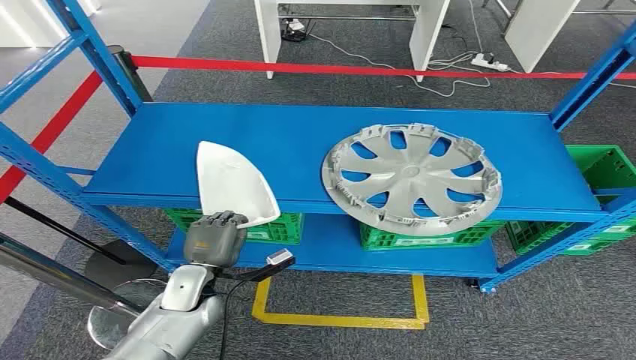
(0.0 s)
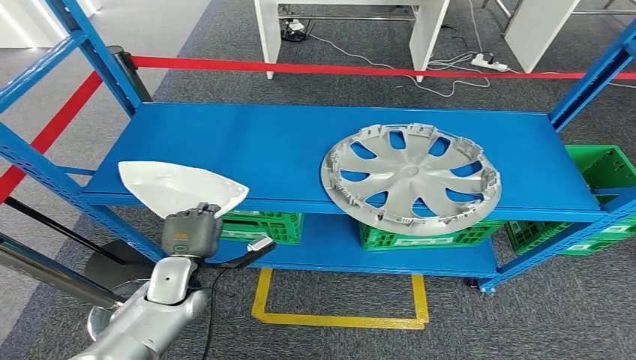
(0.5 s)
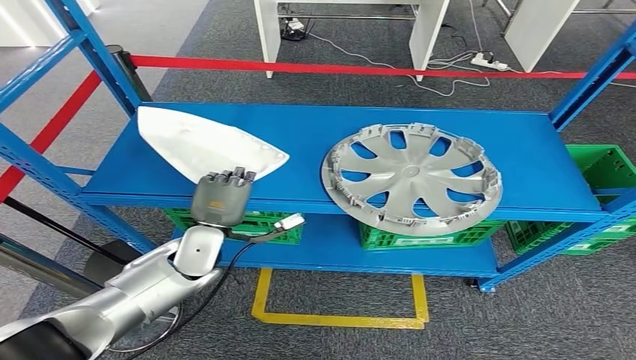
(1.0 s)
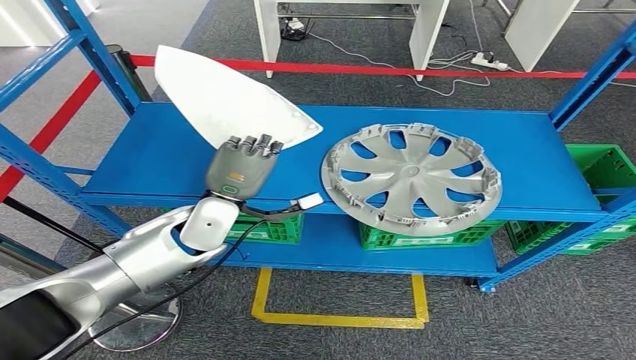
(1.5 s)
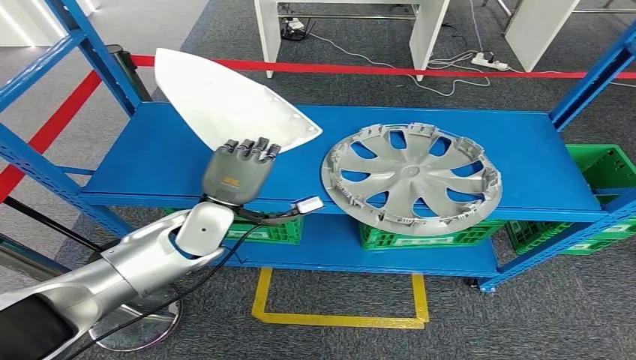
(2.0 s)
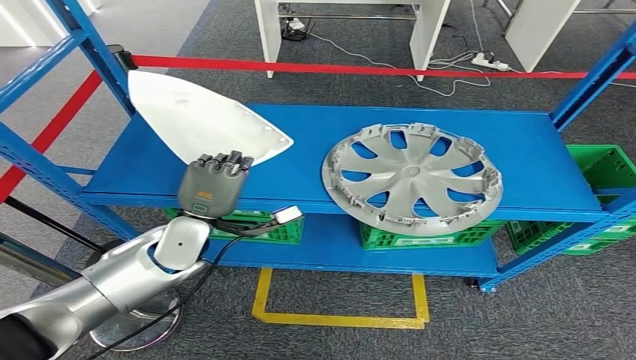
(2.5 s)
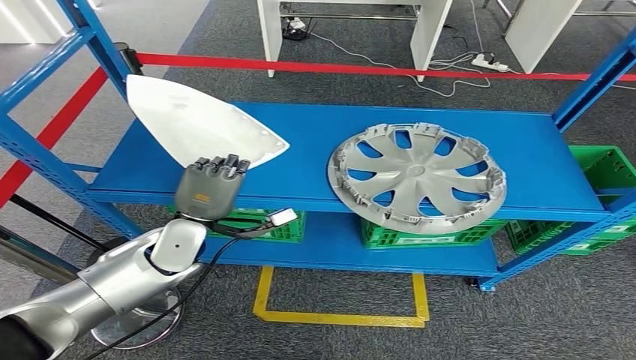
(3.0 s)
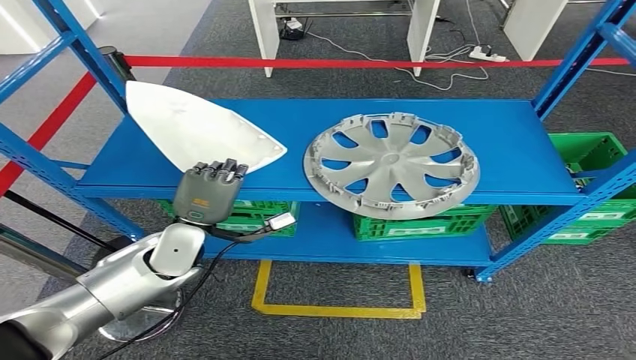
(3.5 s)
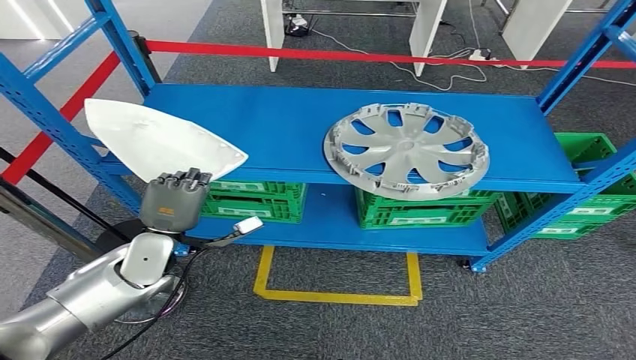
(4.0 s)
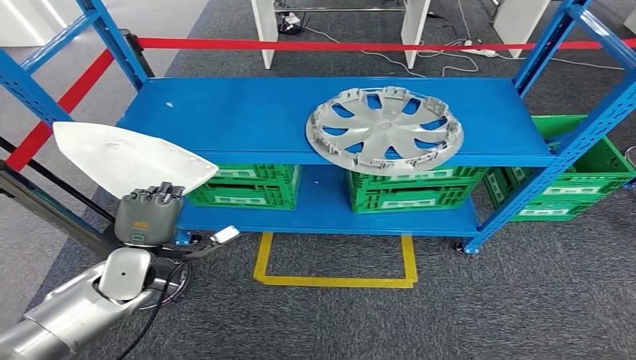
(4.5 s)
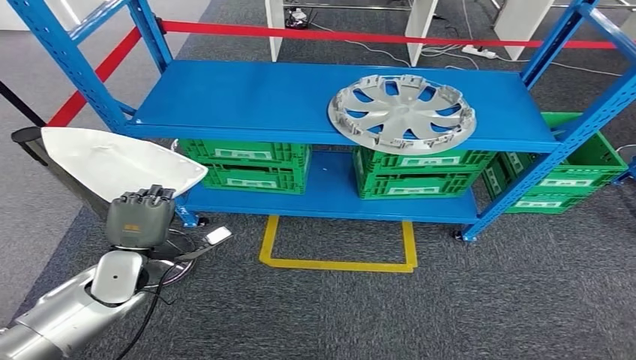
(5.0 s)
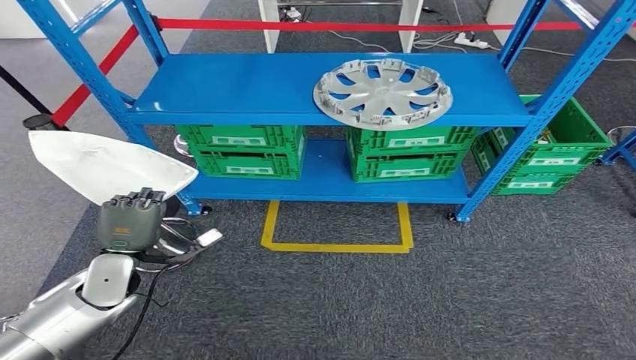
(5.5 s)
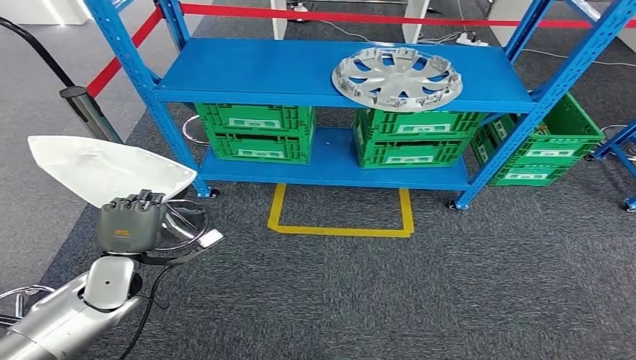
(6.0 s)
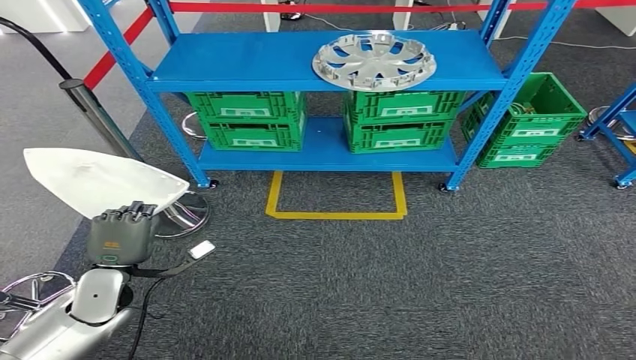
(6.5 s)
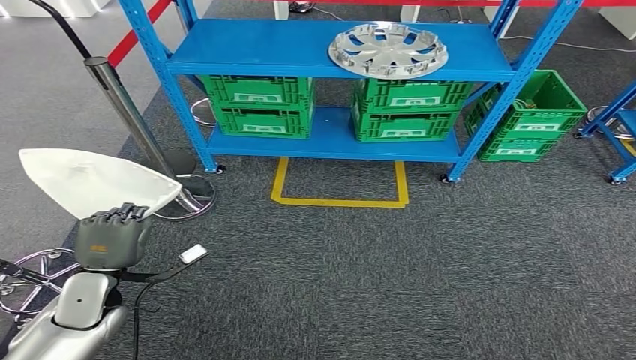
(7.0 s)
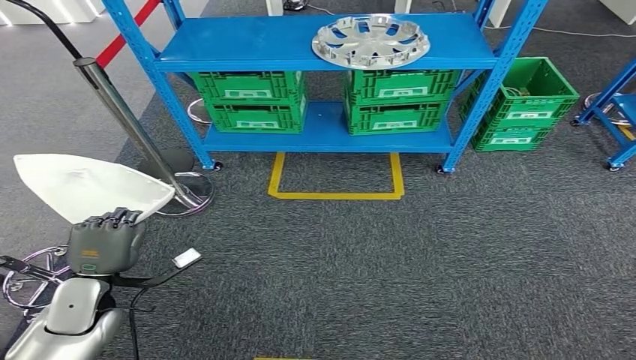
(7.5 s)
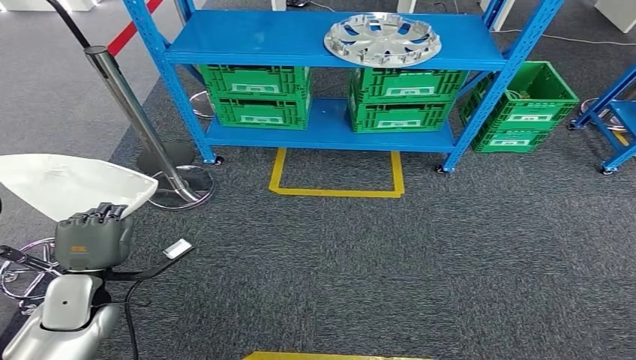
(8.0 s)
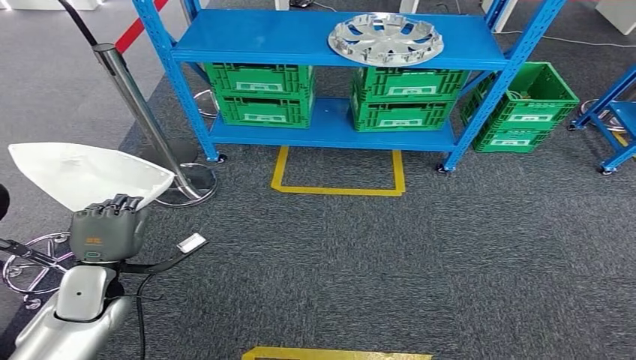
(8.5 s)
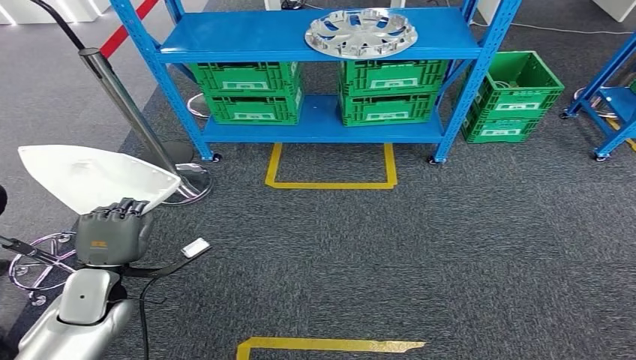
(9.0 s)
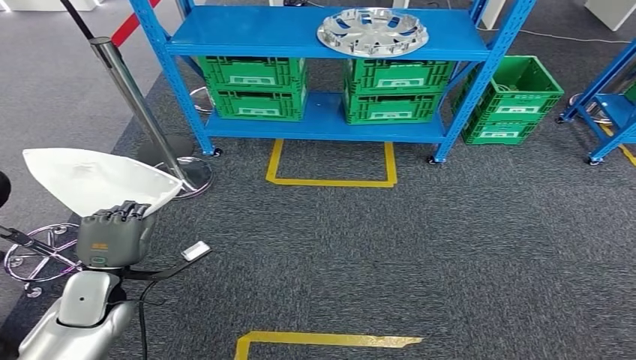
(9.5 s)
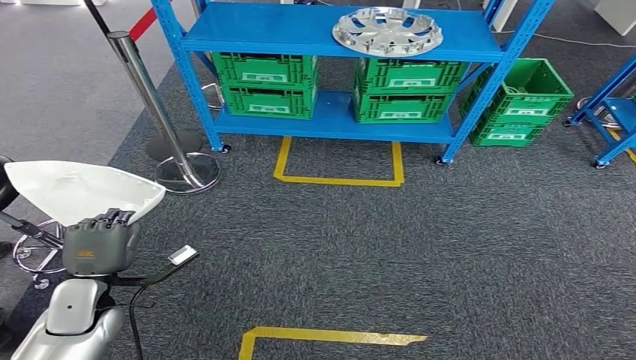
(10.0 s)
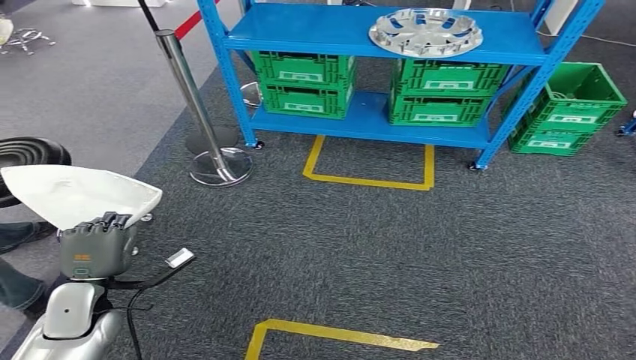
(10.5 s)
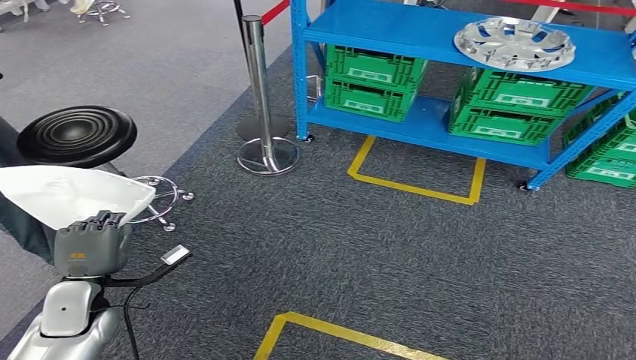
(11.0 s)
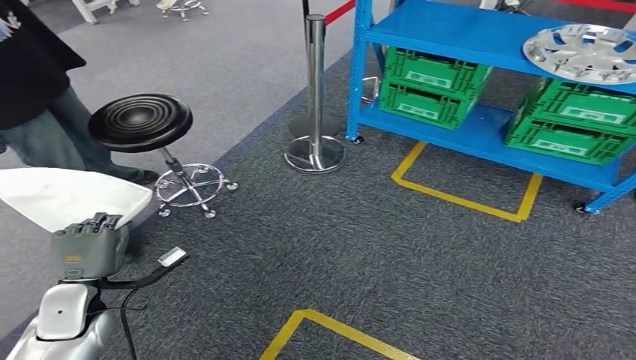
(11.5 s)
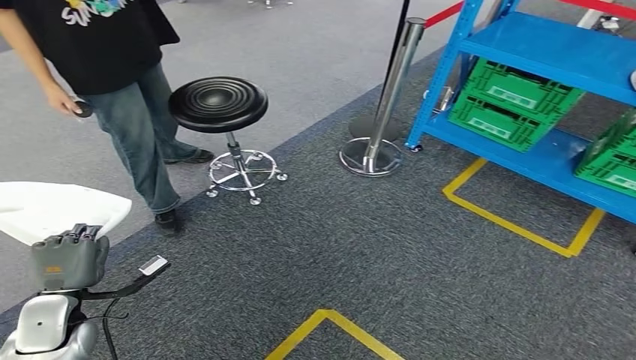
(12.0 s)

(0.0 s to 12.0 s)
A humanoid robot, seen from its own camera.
Step, 0.0 s - 1.5 s: Pick up the small component from the shelf.

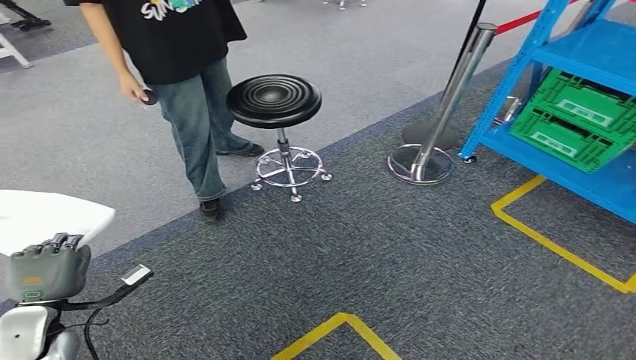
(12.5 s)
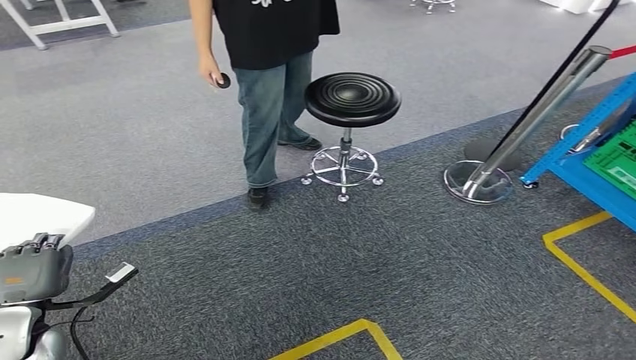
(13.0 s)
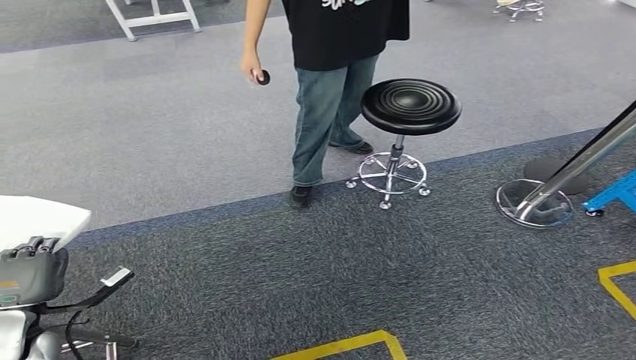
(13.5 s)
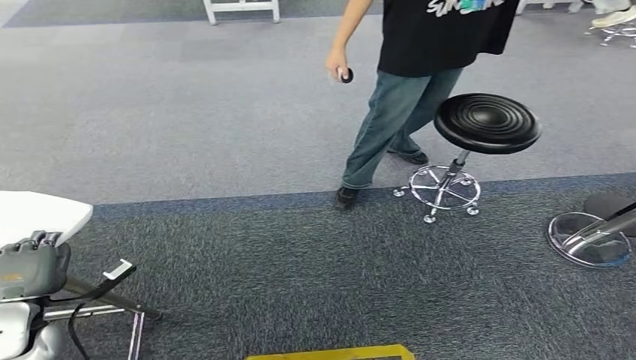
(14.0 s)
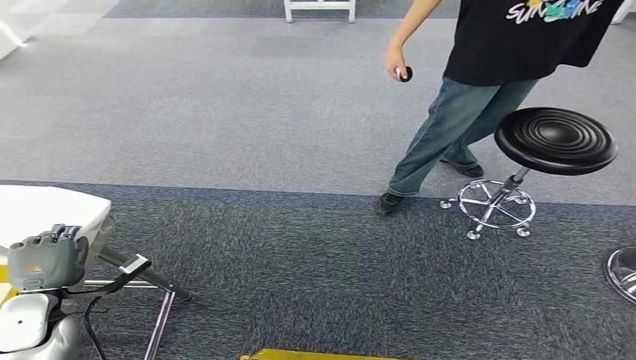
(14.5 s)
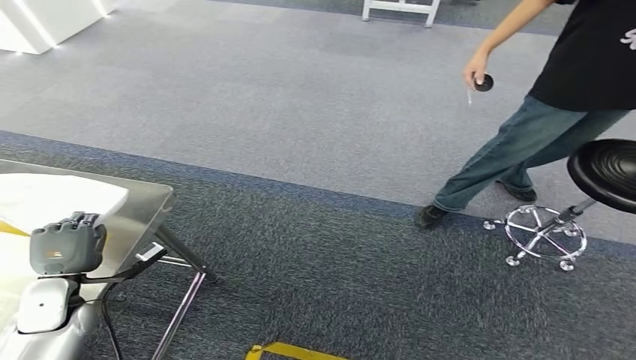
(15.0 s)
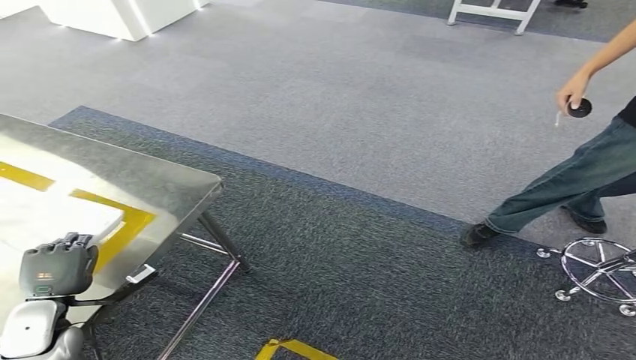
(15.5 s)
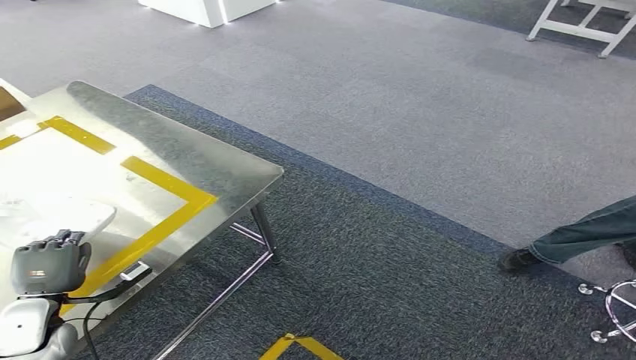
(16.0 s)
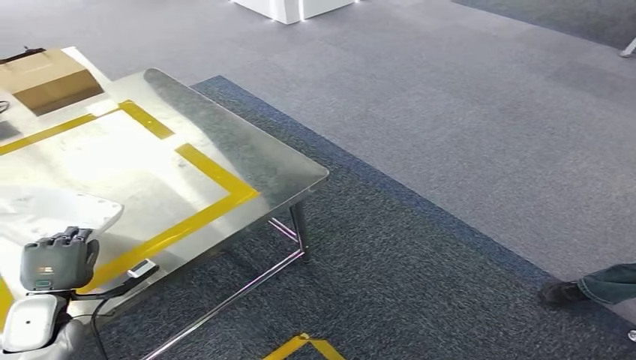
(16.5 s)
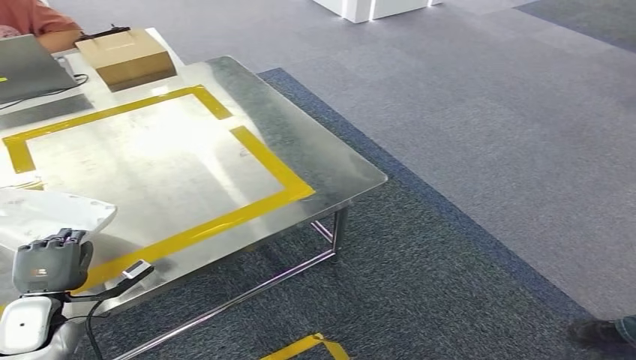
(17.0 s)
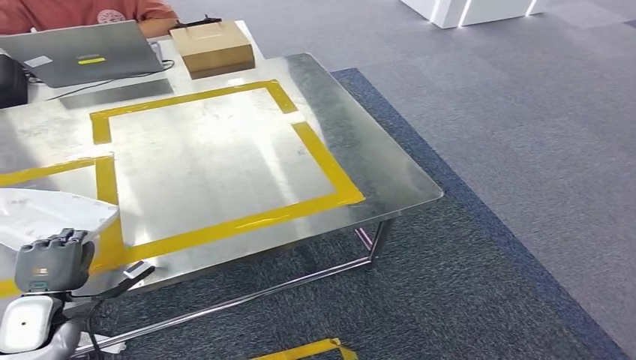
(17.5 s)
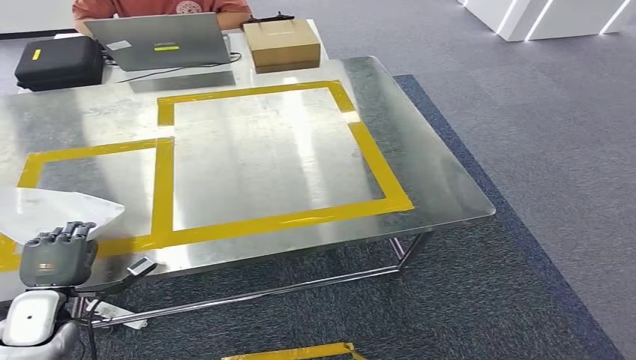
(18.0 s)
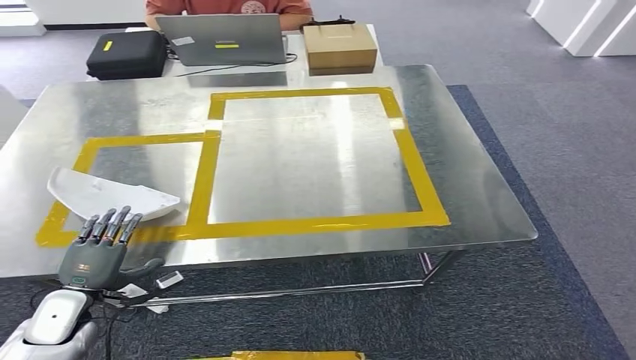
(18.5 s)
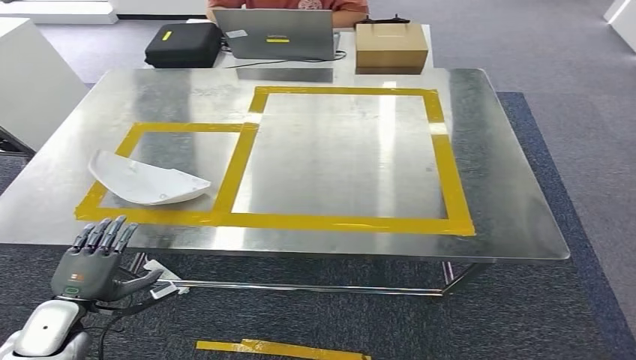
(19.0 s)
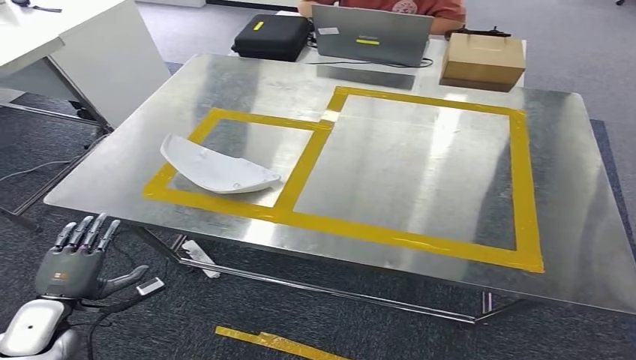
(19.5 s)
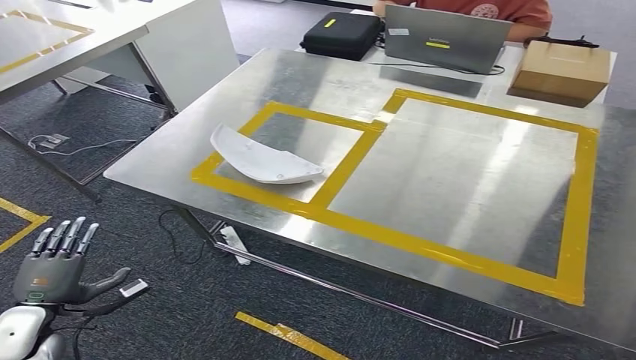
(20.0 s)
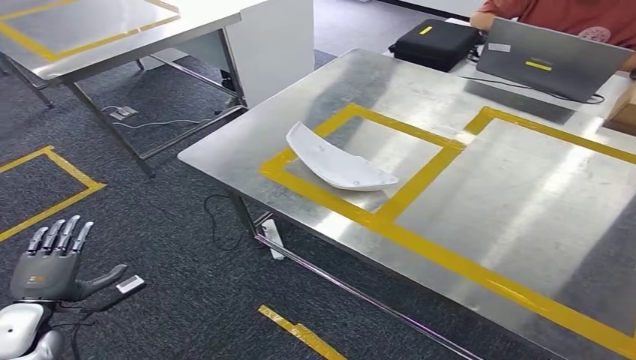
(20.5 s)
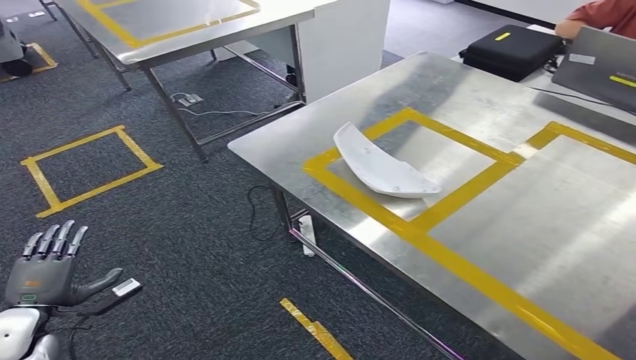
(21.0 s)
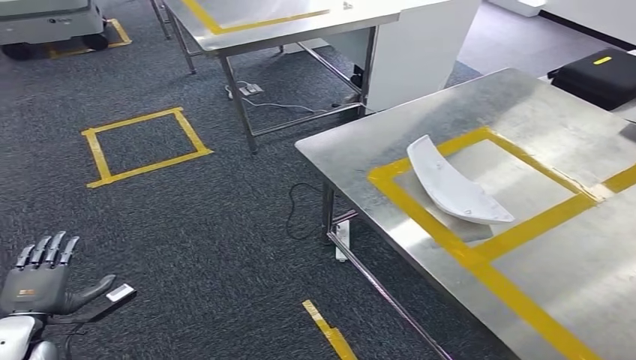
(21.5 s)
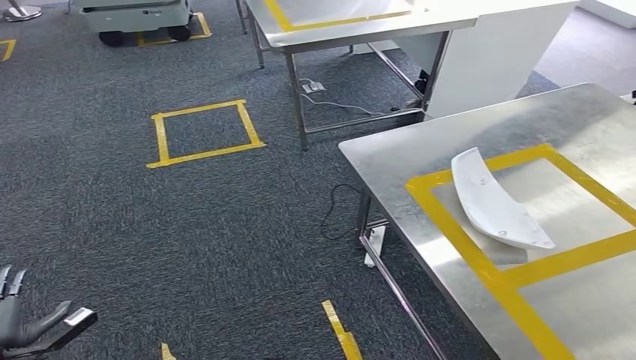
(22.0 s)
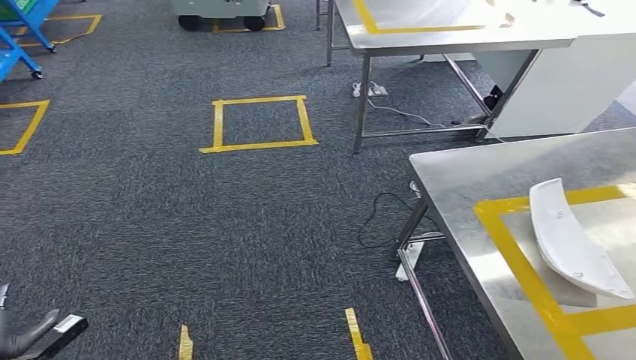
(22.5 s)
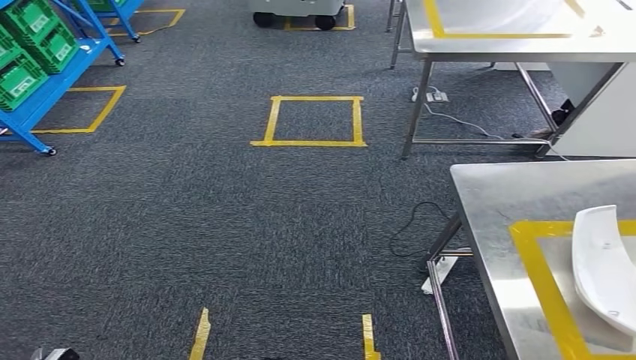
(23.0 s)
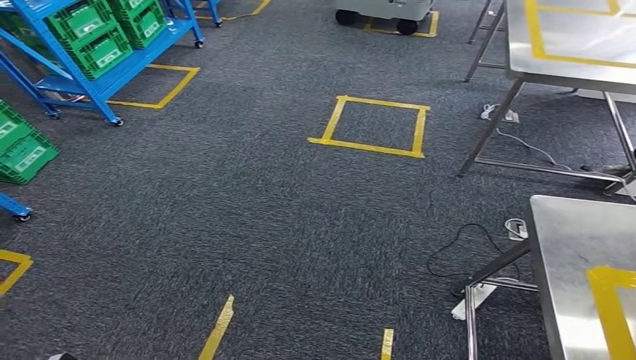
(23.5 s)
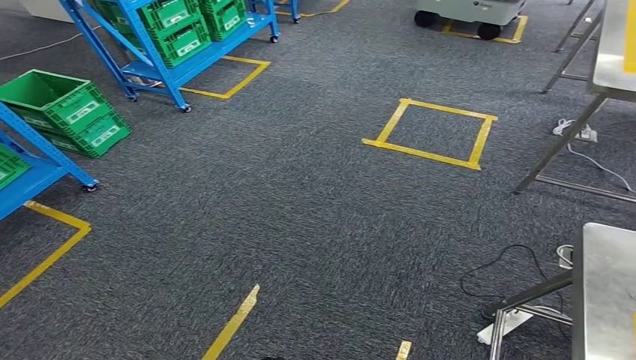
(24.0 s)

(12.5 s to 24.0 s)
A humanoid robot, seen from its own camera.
Step, 12.5 s - 16.5 s: Move the small component to the workbench.
Step, 17.0 s - 21.5 s: Insert the small component into the corresponding slot on the workbench.
